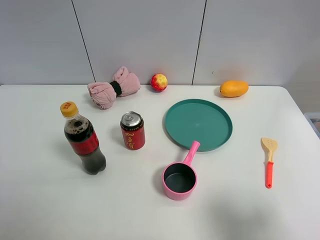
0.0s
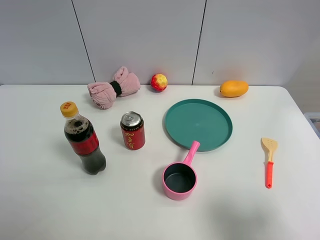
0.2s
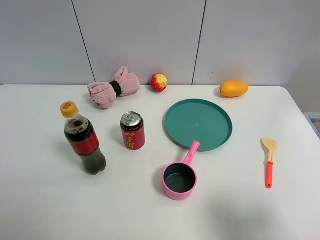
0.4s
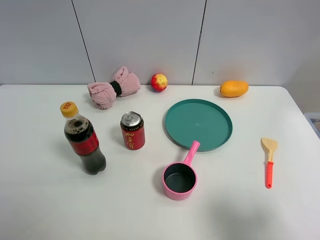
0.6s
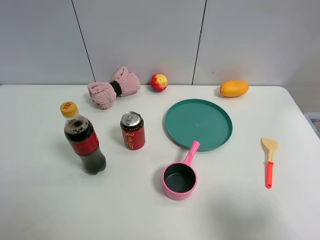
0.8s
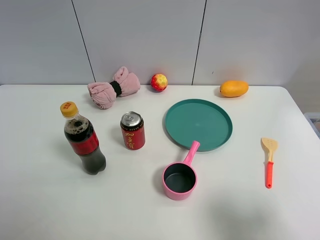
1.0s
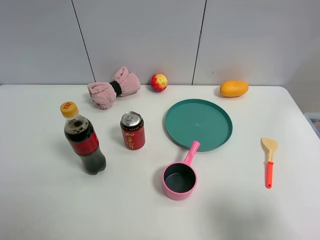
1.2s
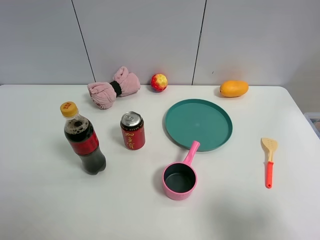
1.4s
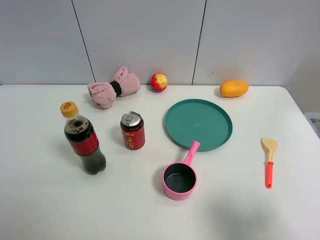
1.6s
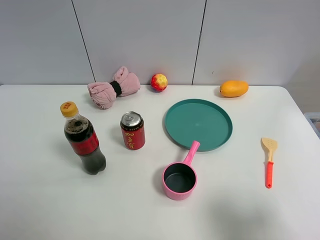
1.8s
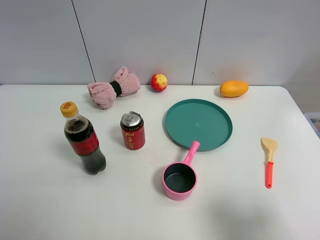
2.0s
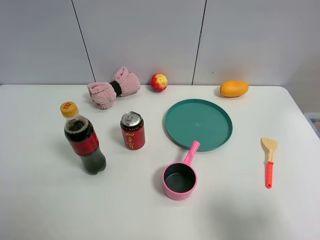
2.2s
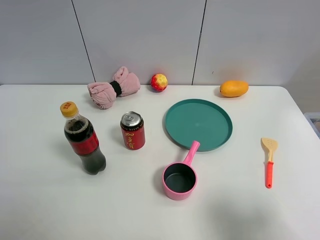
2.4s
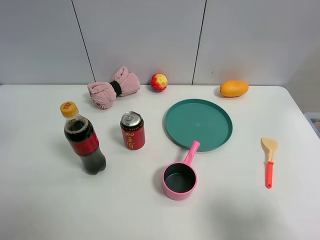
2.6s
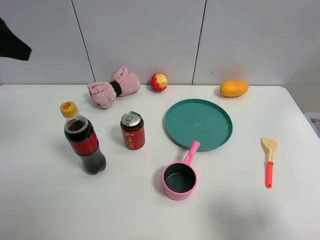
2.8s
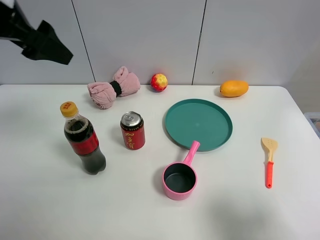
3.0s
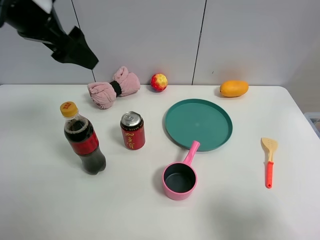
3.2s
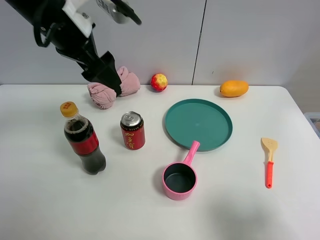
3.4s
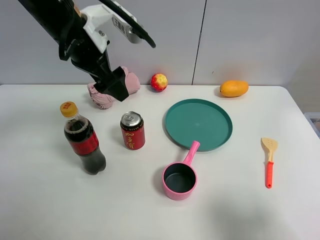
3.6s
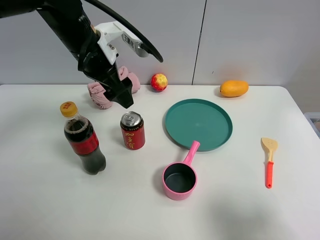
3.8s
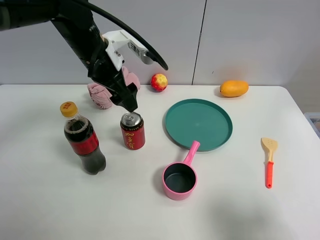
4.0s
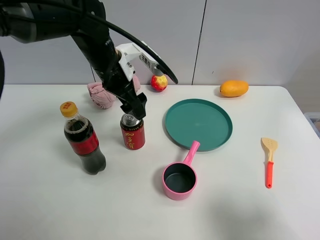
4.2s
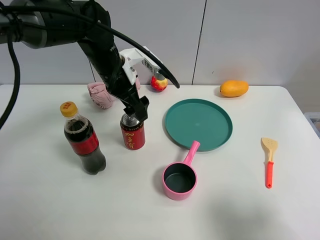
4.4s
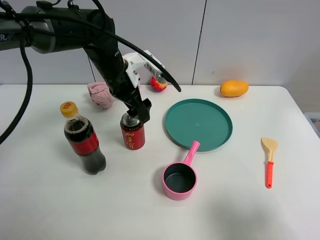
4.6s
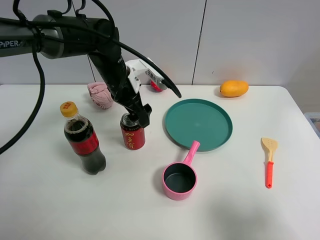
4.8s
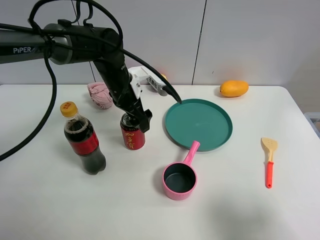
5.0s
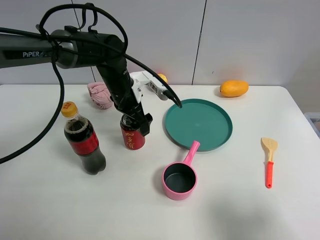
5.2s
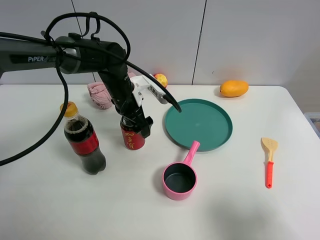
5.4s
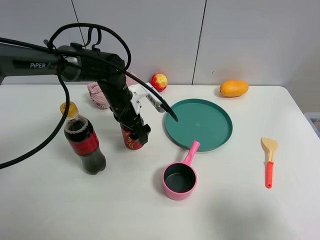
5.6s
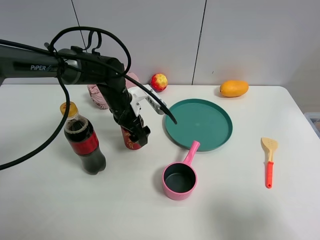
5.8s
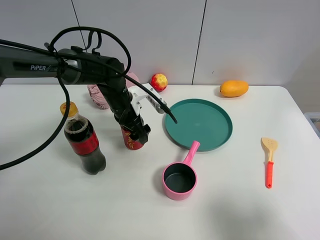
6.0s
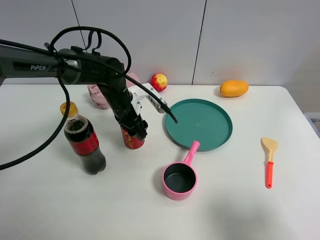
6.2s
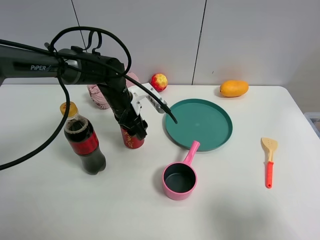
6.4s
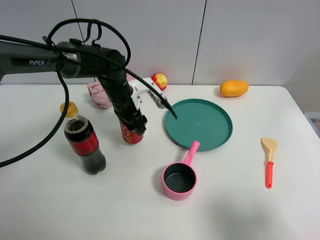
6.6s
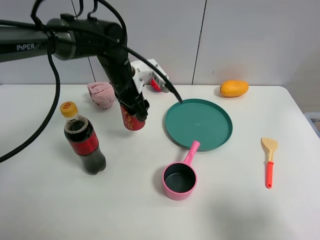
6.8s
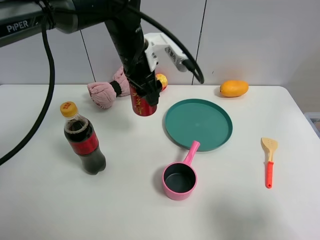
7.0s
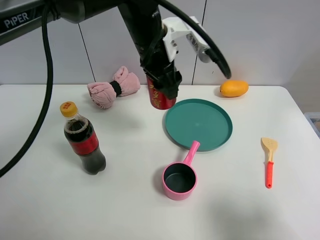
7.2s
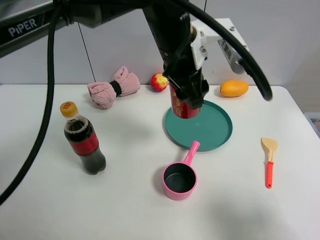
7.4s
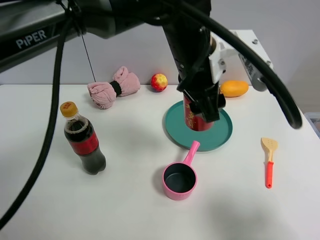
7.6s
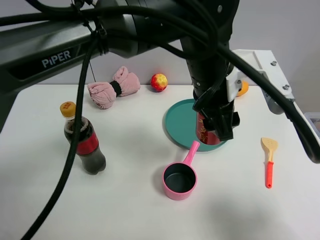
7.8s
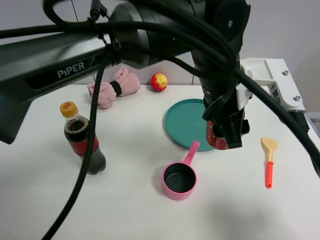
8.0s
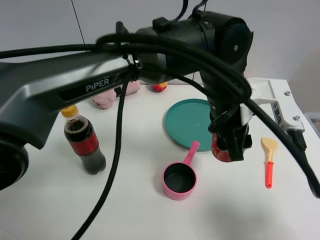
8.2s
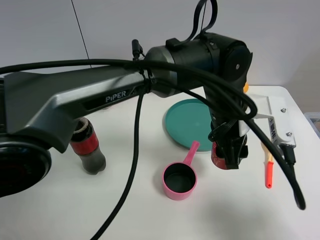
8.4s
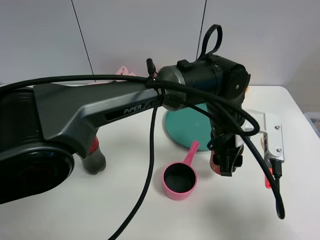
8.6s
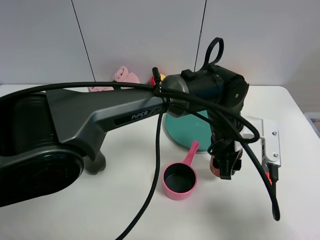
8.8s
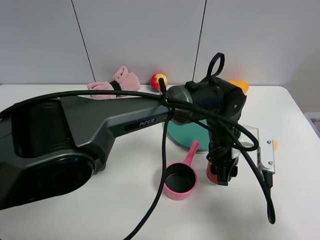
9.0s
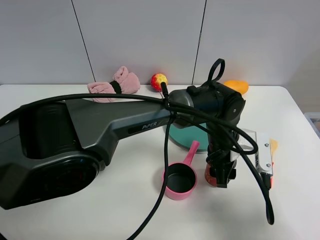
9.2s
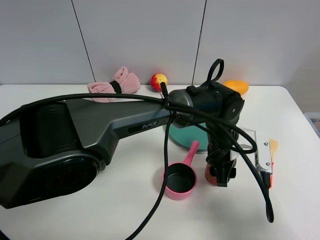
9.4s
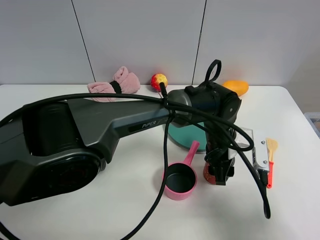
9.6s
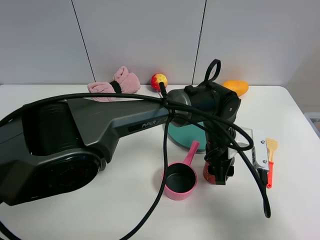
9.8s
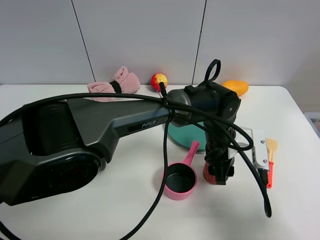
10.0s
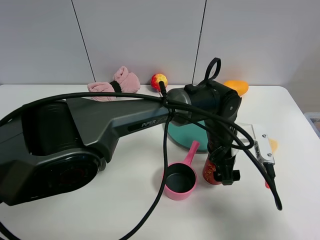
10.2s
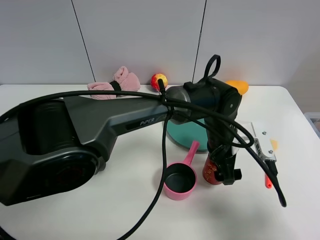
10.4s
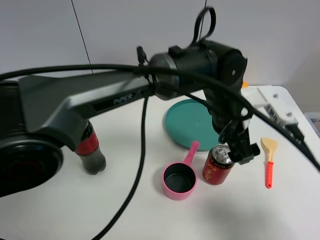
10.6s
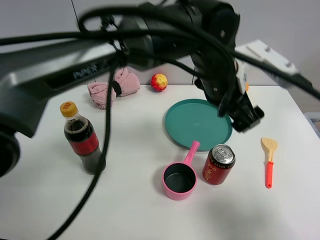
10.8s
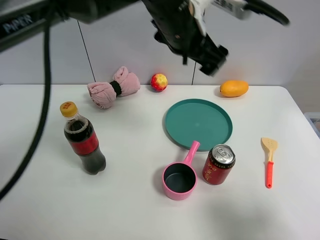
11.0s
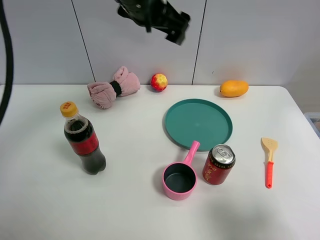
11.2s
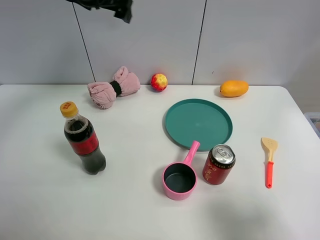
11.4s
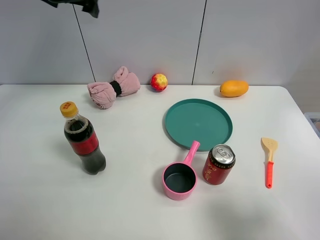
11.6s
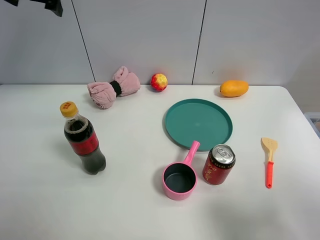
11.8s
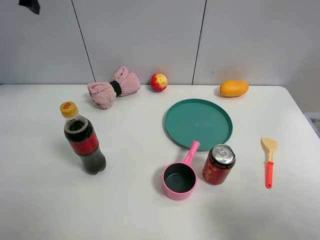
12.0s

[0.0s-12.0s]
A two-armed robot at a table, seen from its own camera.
Task of the whole recording: the gripper move the object.
Step, 0.0s to 6.0s: Grasp the Jia Duo Bao with the left gripper.
Step, 6.2s to 10.6s: Place the Jia Duo Bao on the table with the left gripper.
0.0s to 1.6s: Both grippers stay put.
1.6s to 3.0s: The left gripper moves forward and upward, approximately 30 cm.
3.0s to 4.4s: The left gripper heads downward, to the right and forward, covering roughly 20 cm.
4.4s to 6.0s: The left gripper heads downward, covering about 10 cm, and closes up.
6.0s to 7.6s: The left gripper travels upward, to the right and backward by roughly 25 cm, and closes up.
7.6s to 9.0s: The left gripper moves downward and to the right, approximately 20 cm.
9.0s to 10.4s: The left gripper opens.
10.4s to 12.0s: The left gripper moves to the left and upward, approximately 50 cm.

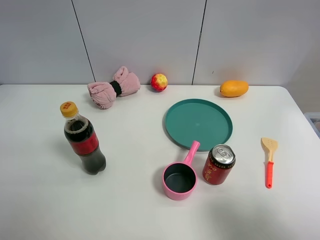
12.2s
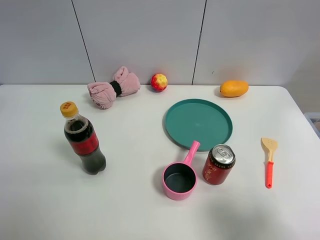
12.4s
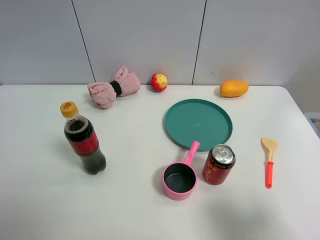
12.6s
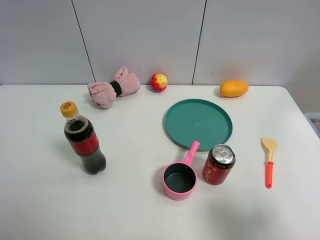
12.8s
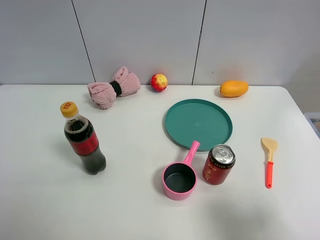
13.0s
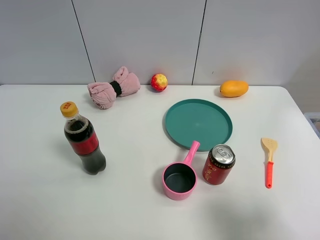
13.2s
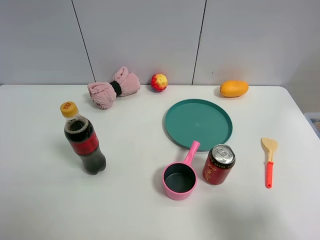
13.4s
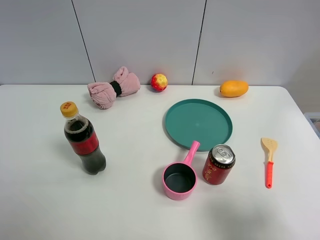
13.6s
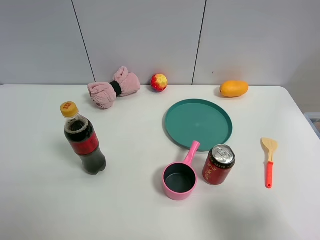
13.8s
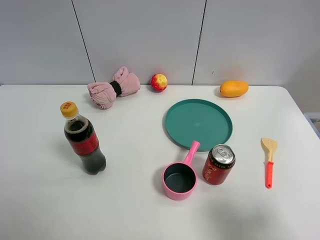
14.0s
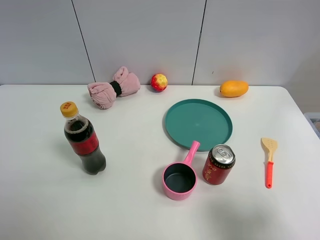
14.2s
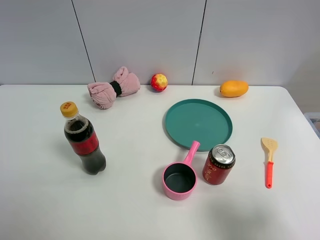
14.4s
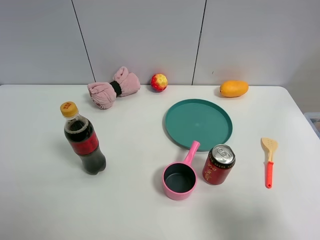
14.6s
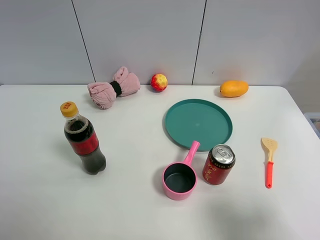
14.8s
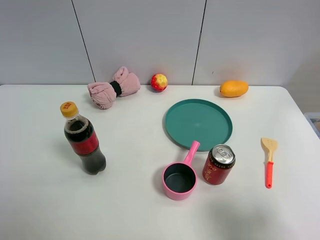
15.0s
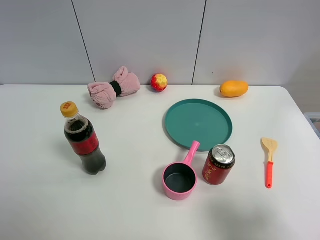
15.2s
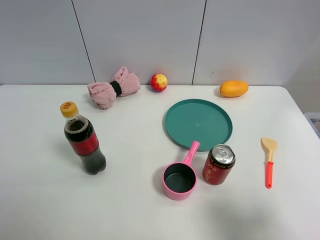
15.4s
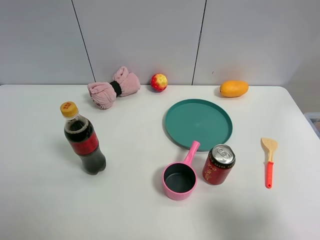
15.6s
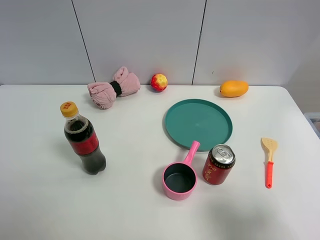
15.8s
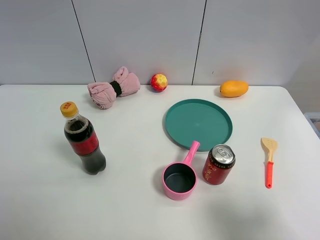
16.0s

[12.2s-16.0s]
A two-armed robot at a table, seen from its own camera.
Task of the whole recording: the gripper move the object.
14.8s to 16.0s: The two grippers keep their place.

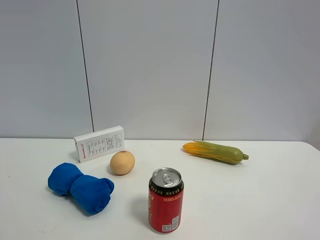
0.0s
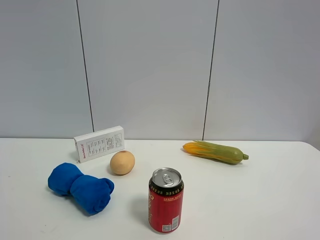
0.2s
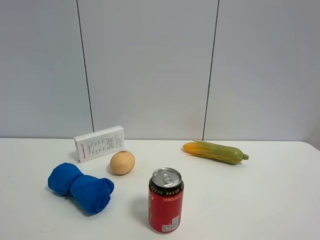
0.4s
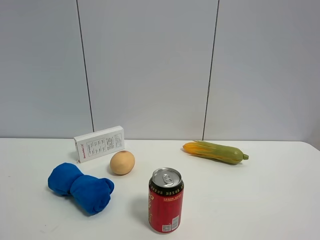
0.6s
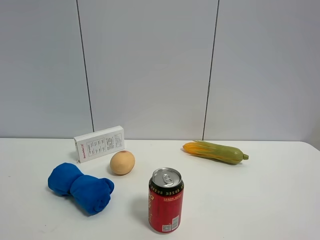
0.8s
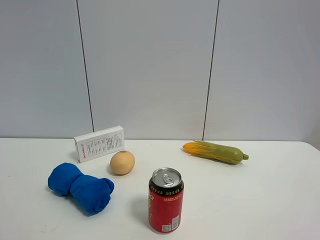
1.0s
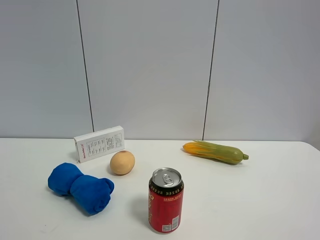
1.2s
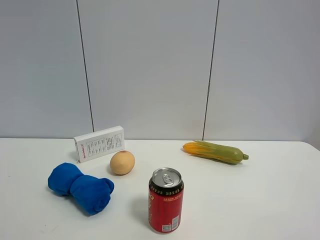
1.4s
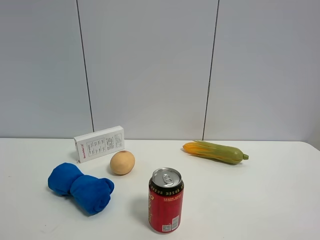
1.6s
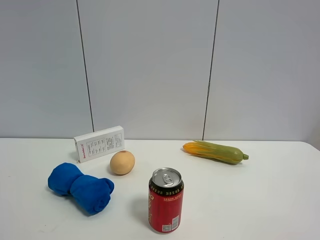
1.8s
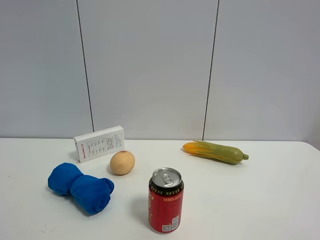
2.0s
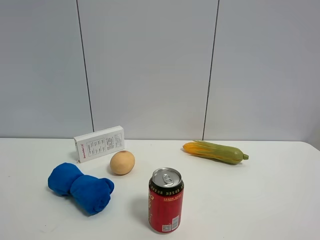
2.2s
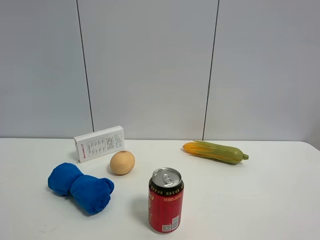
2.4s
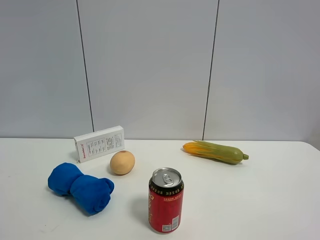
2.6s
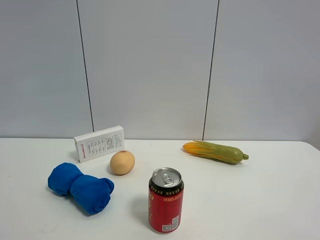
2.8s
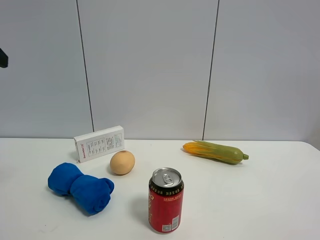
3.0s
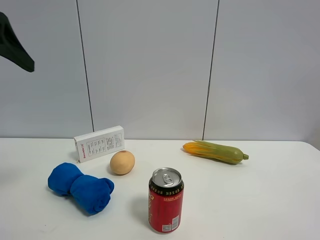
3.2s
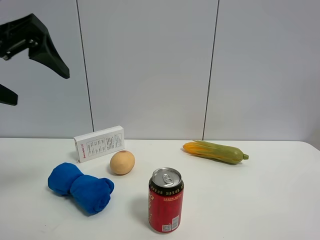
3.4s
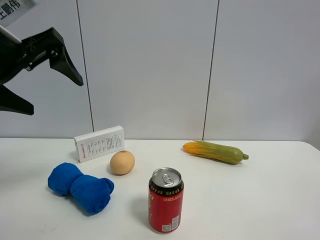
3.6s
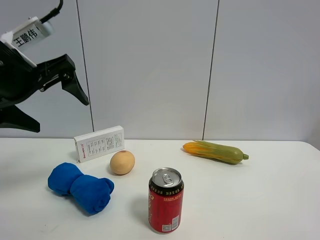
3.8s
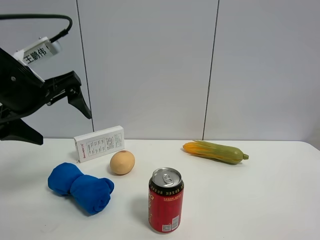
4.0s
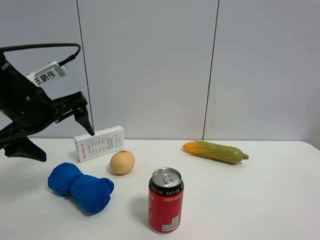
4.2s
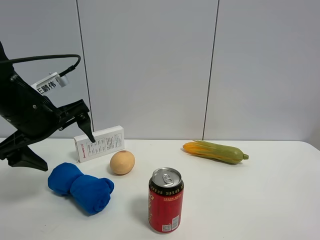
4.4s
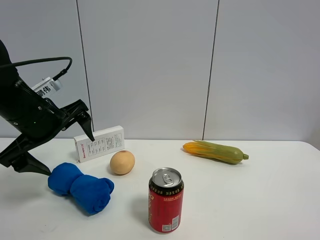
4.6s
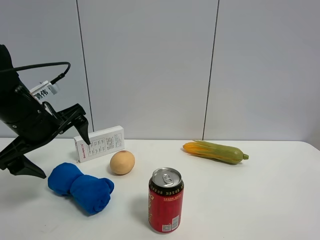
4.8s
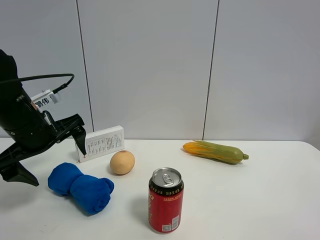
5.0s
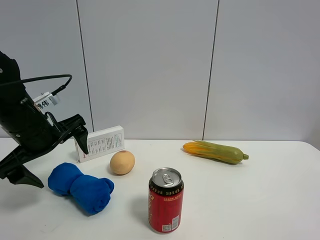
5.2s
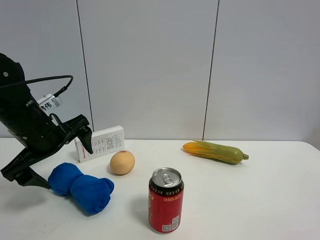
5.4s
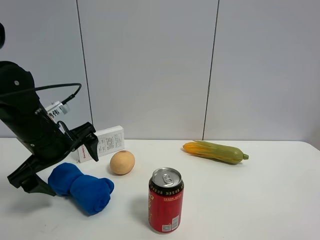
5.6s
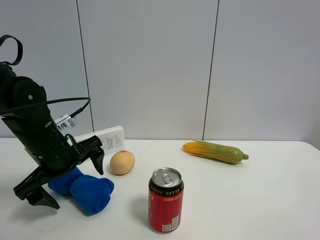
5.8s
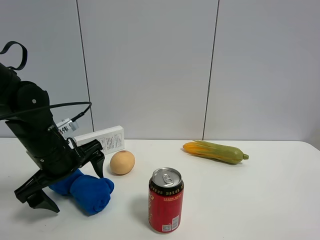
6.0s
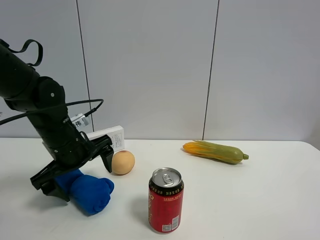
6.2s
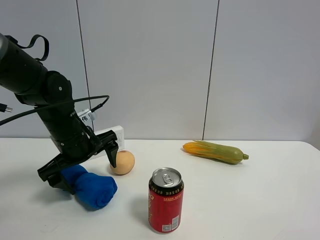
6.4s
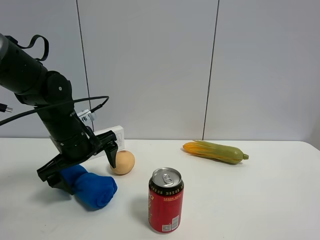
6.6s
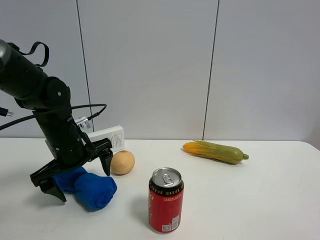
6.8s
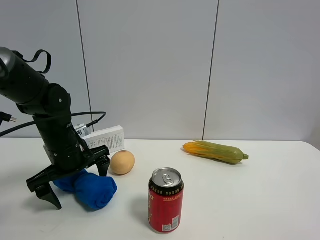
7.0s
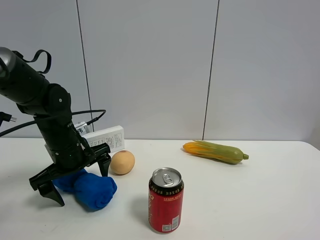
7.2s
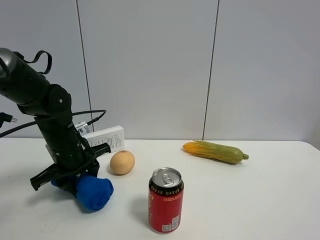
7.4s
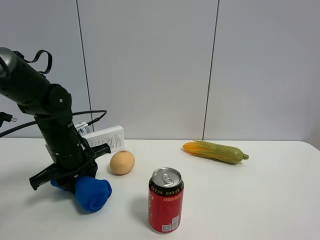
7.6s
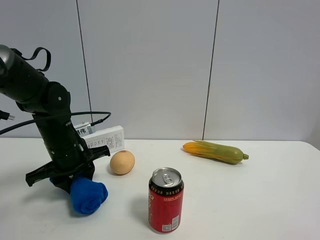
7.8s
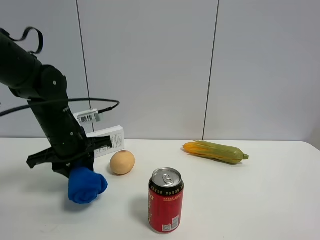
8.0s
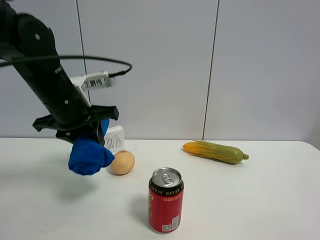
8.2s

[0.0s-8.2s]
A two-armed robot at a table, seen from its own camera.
Task of the whole recording: the gripper move the object.
Step, 0.0s to 7.6s: Grasp the blue towel with the left gripper.
1.6s to 3.2s: The left gripper is displaced forward by about 25 cm.
3.2s to 5.0s: The left gripper heads downward and forward, covering approximately 20 cm.
5.0s to 6.6s: The left gripper shifts by approximately 10 cm.
6.6s to 8.2s: The left gripper is displaced upward by about 10 cm, and closes.
